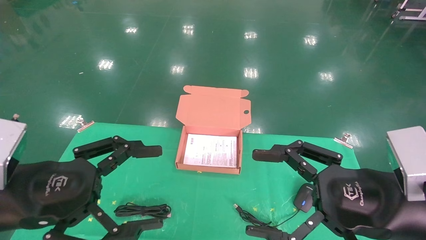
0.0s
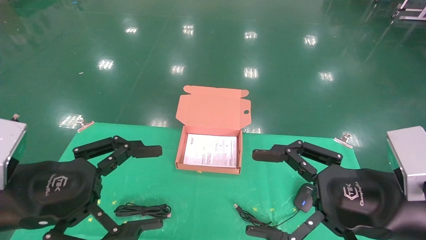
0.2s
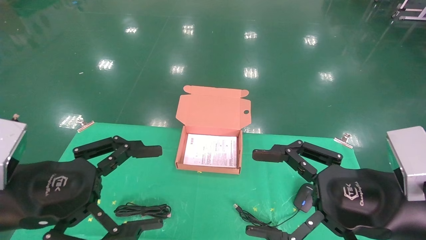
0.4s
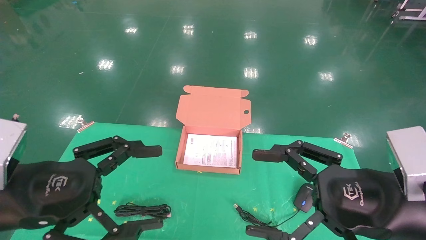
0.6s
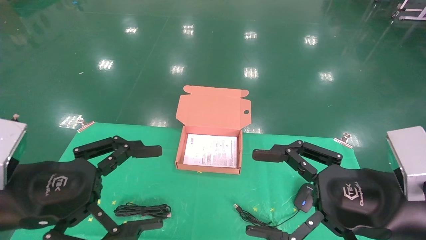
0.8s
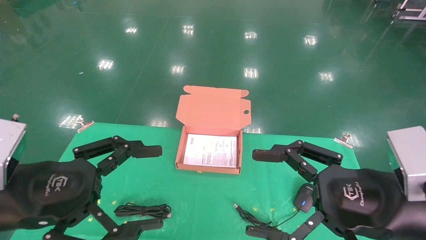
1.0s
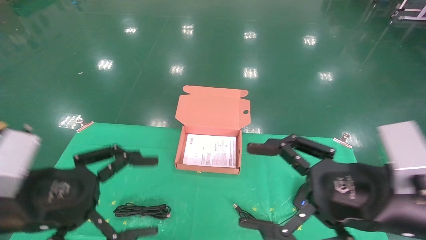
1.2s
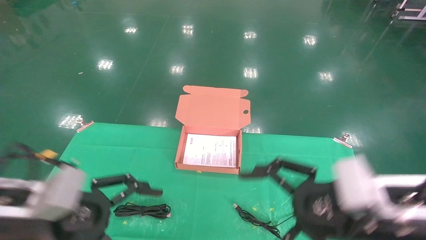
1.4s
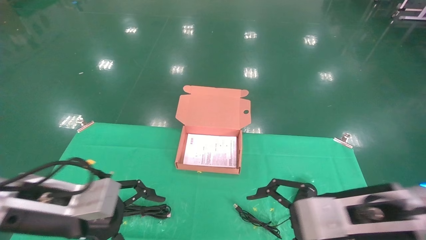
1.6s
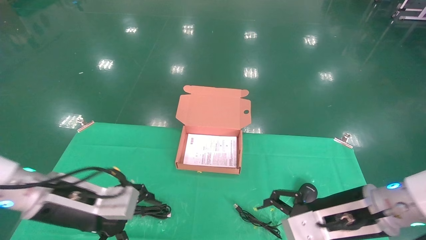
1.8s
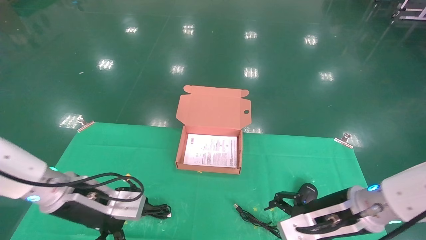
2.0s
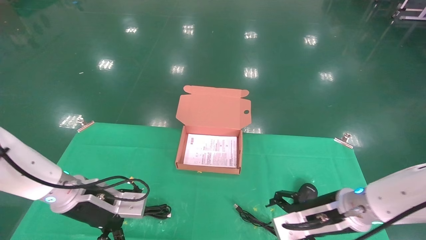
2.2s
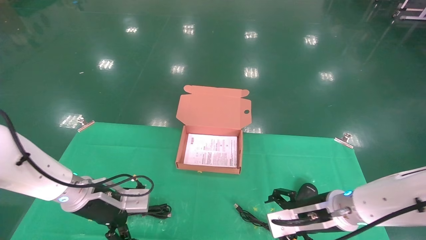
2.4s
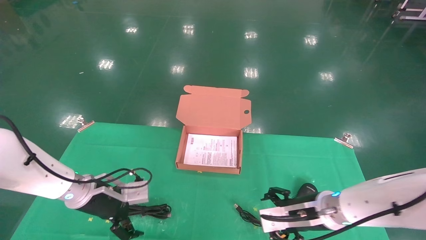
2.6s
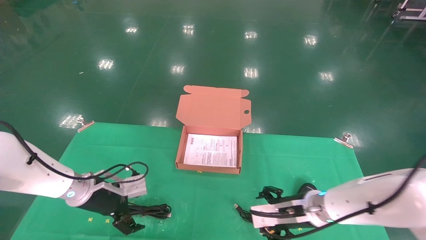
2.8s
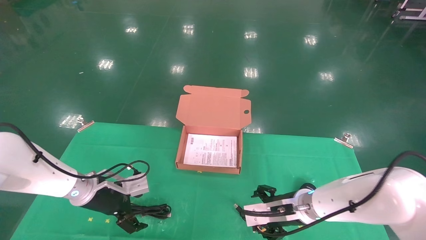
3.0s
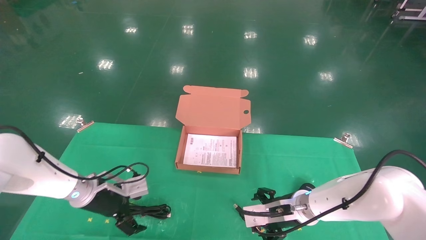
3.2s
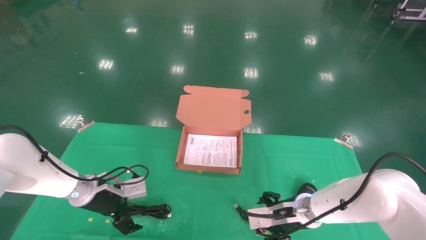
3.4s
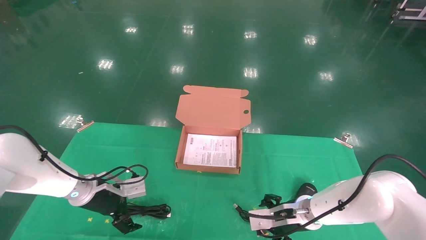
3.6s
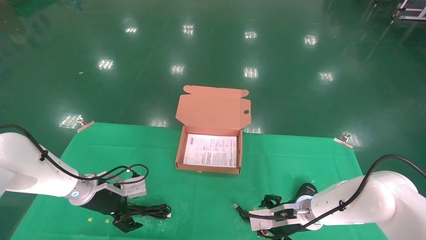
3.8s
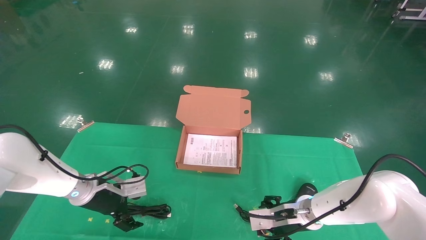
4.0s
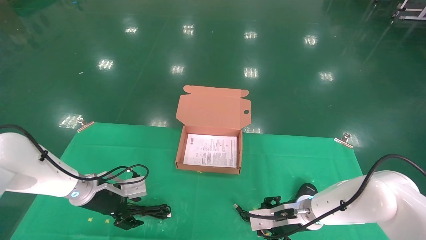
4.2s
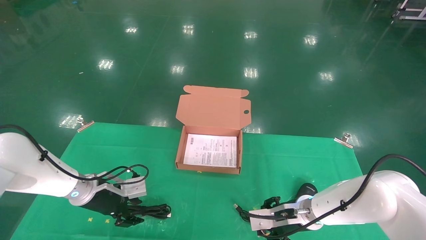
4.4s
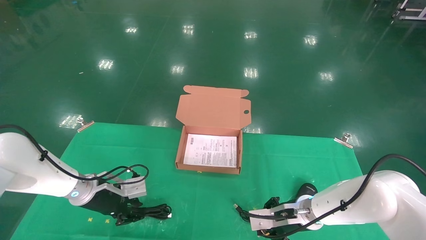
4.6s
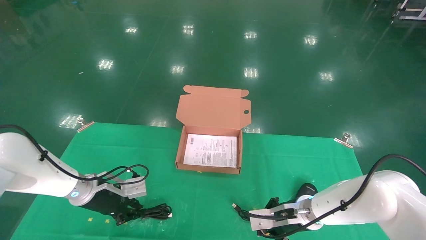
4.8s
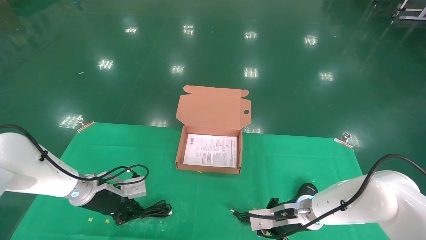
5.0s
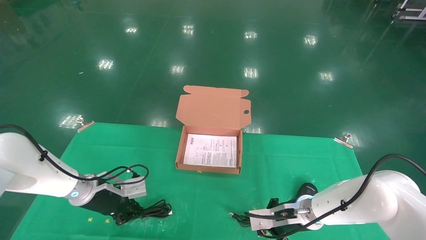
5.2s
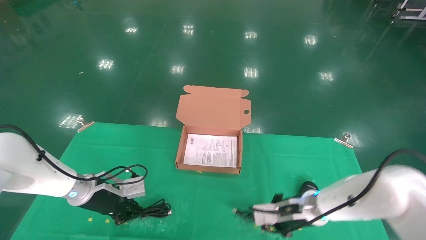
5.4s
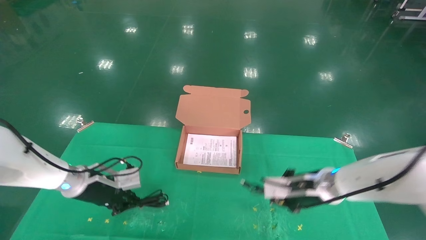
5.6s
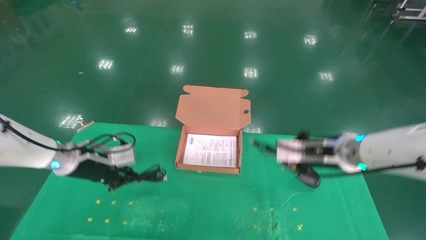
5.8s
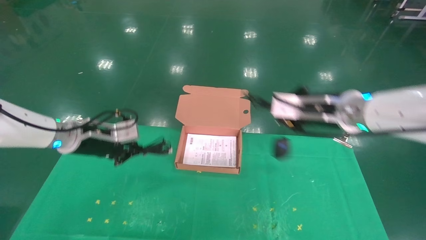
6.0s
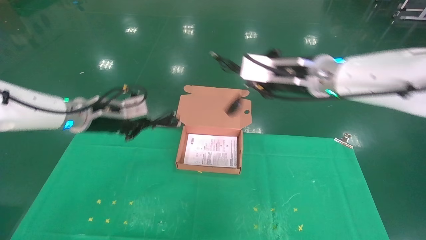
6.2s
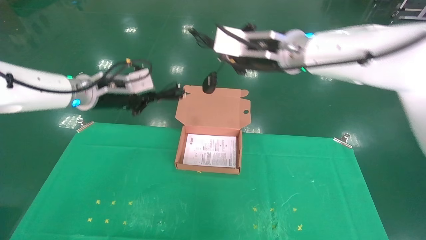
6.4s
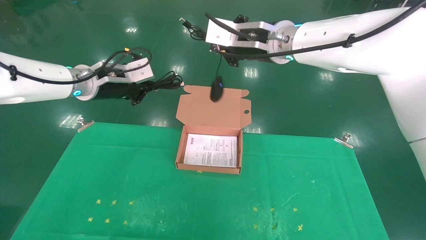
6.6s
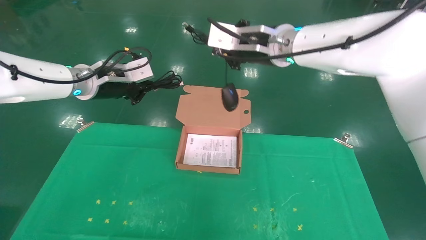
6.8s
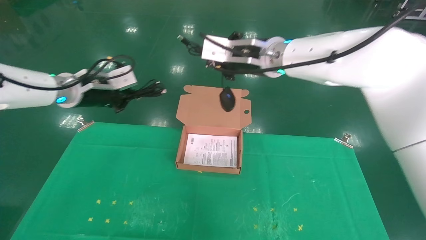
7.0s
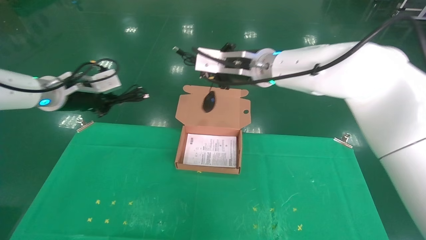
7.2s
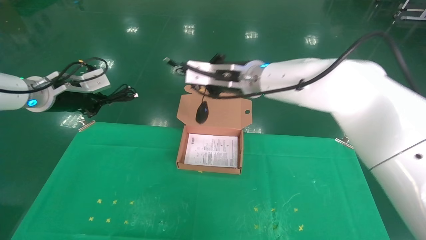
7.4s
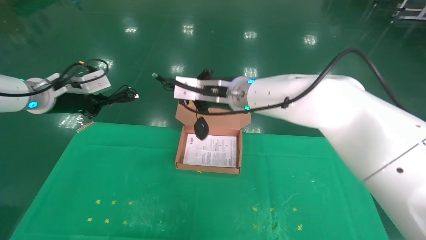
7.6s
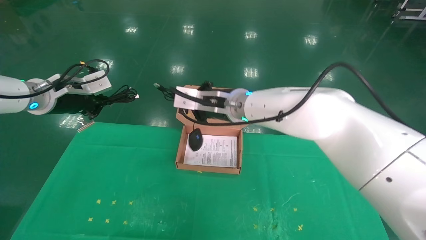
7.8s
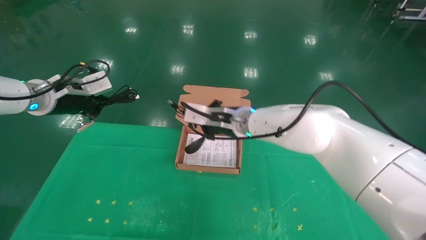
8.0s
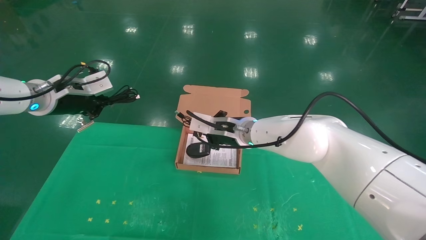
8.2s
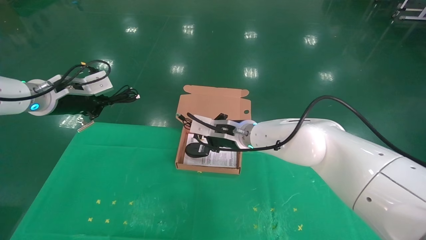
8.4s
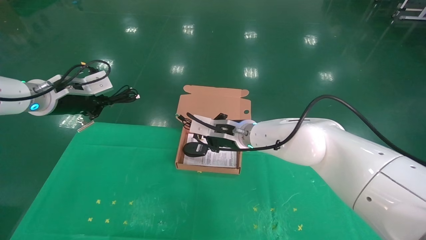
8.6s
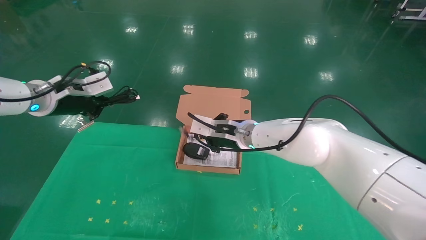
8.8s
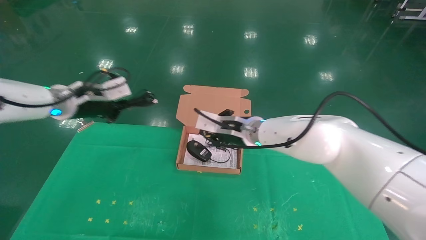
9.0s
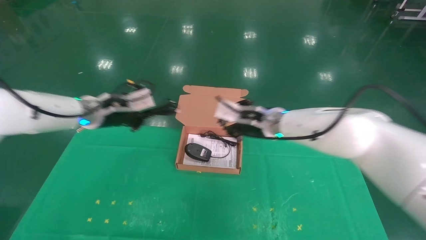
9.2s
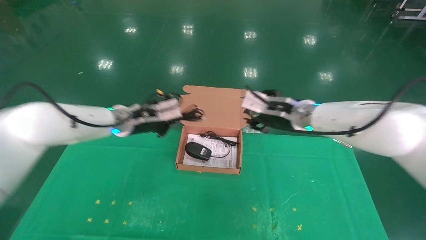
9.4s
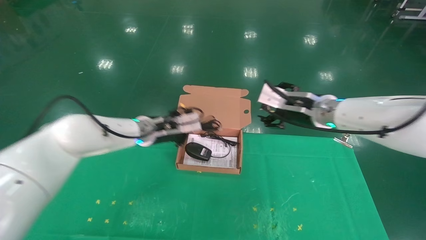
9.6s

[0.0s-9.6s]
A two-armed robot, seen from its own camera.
Task of the whole recording: grasp data cable left put into box grasp mouse right put into box.
Step, 1.0s to 5.4s: Grab and pick up both the mouse and power cord from the accessory packaging area at the same time.
0.0s to 1.6s: The left gripper heads forward and downward, covering approximately 10 cm; the right gripper is displaced forward by roughly 5 cm.
1.6s to 3.2s: The two grippers go about 20 cm forward and downward.
3.2s to 4.8s: The left gripper closes; the right gripper closes its fingers.
4.8s to 6.4s: The right gripper moves upward, some 35 cm. Meanwhile the left gripper goes some 20 cm upward.
6.4s to 8.0s: The right gripper goes approximately 15 cm downward and to the left; the left gripper heads to the left, covering roughly 10 cm.
8.0s to 9.6s: The right gripper moves to the right, roughly 15 cm, and opens its fingers. The left gripper goes approximately 20 cm to the right and downward.

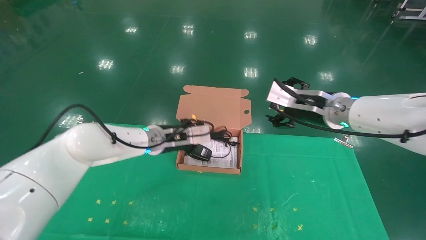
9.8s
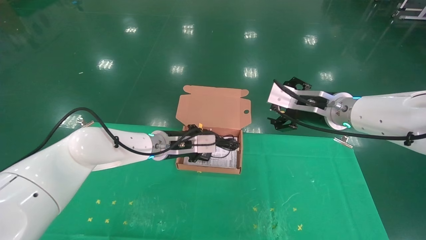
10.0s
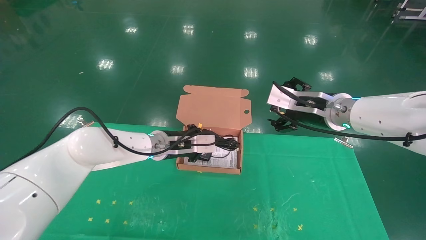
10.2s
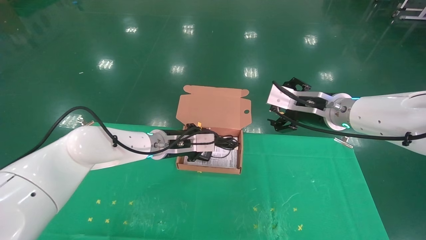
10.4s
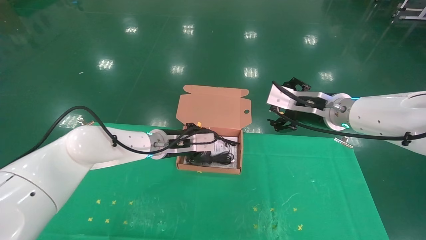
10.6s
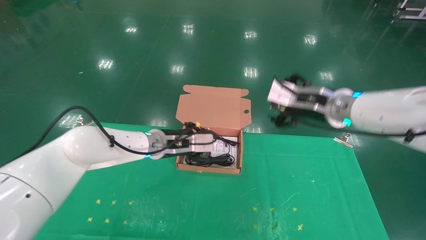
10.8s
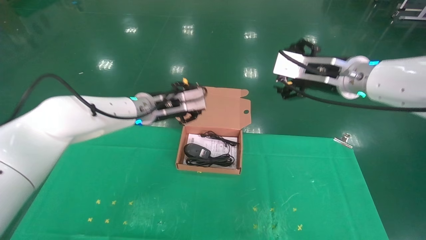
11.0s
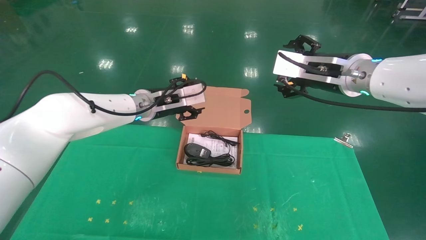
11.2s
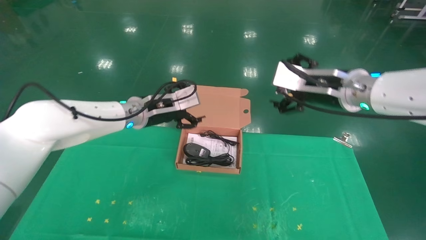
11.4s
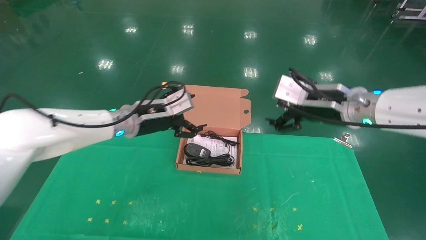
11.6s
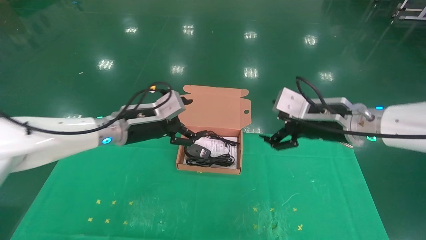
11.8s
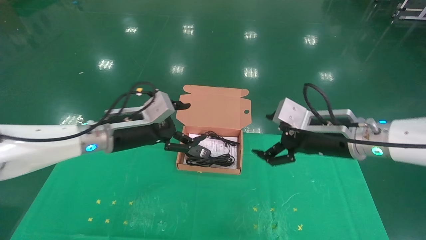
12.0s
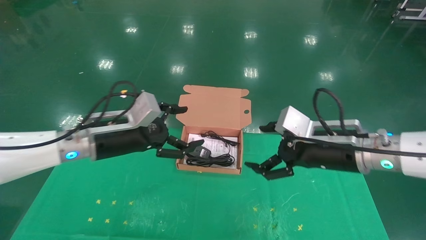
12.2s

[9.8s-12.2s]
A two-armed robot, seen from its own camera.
Task of the whole recording: grasp data cable left put into box grasp mouse right put into box.
9.8s to 11.0s: The two grippers go about 5 cm upward. The left gripper opens up.
11.0s to 12.2s: The right gripper shifts some 10 cm downward and backward, while the left gripper shifts about 15 cm backward and to the left, and opens up.
